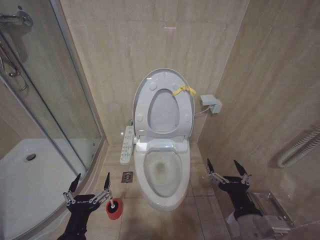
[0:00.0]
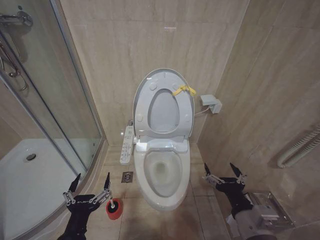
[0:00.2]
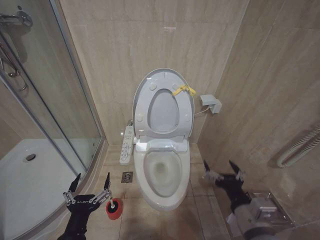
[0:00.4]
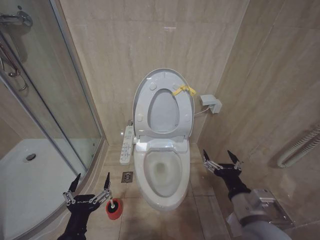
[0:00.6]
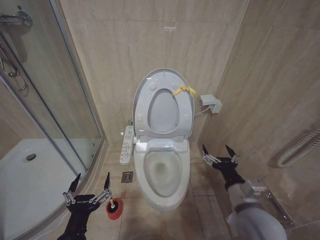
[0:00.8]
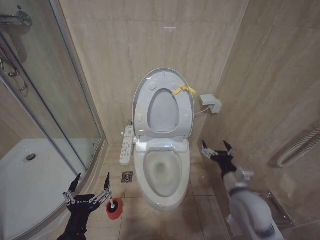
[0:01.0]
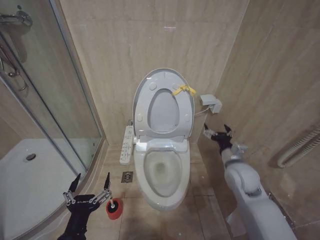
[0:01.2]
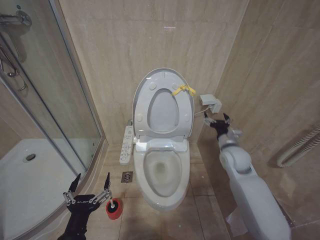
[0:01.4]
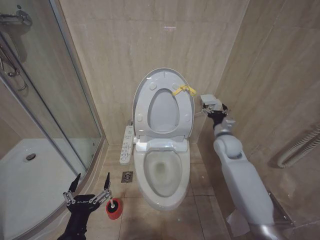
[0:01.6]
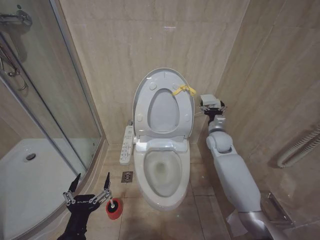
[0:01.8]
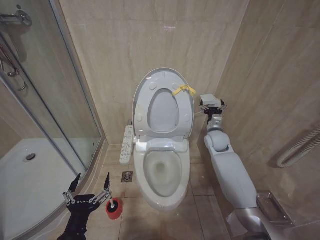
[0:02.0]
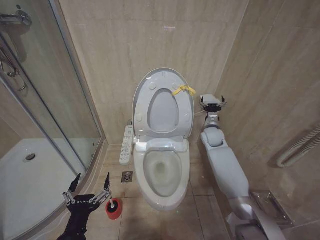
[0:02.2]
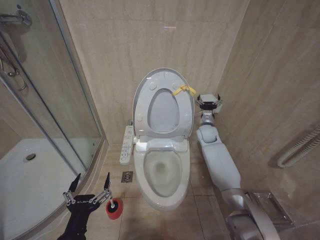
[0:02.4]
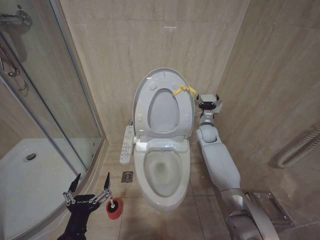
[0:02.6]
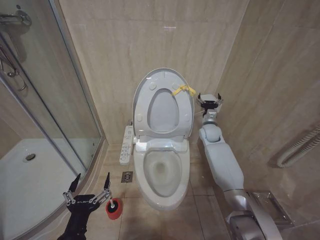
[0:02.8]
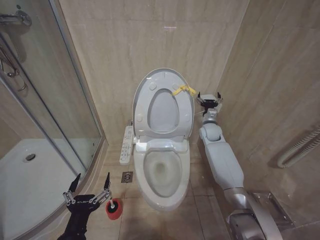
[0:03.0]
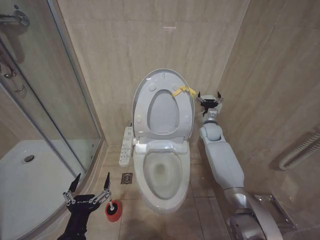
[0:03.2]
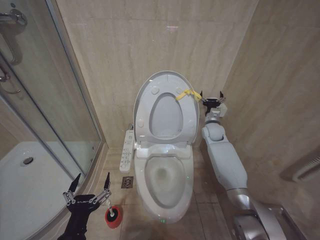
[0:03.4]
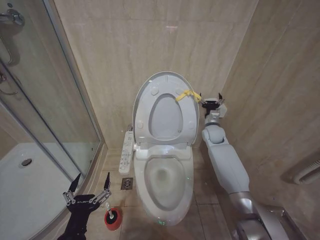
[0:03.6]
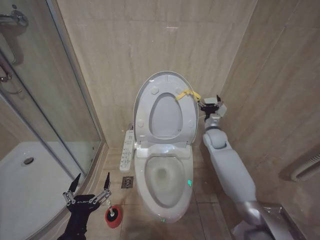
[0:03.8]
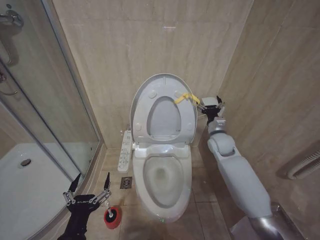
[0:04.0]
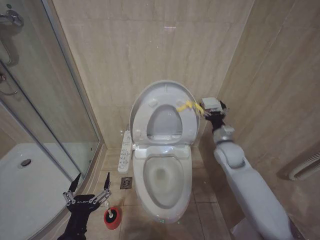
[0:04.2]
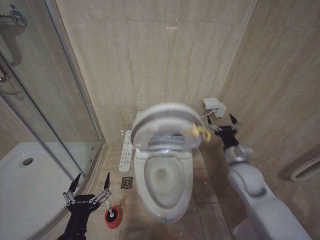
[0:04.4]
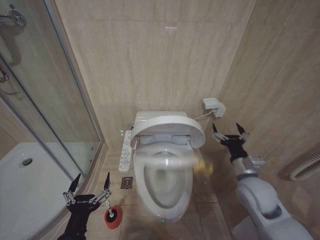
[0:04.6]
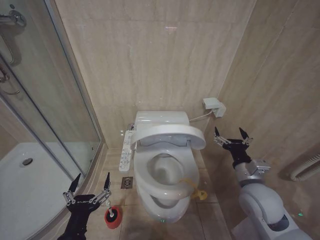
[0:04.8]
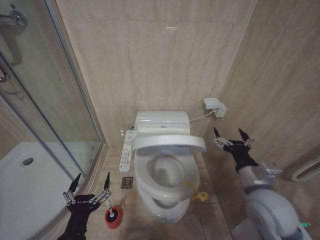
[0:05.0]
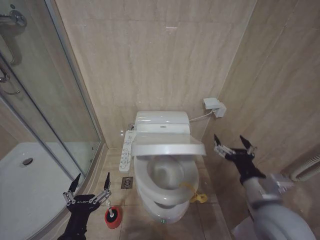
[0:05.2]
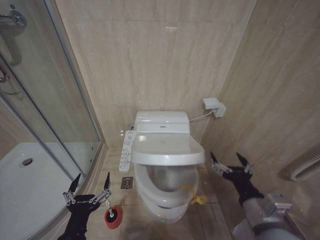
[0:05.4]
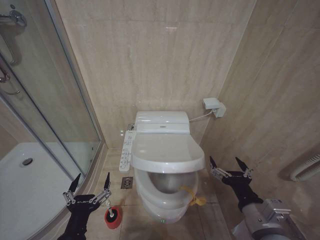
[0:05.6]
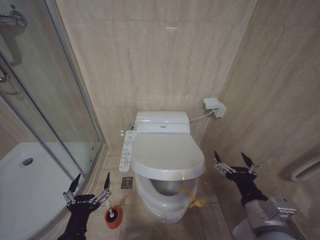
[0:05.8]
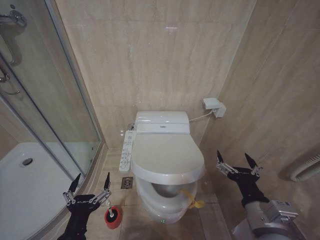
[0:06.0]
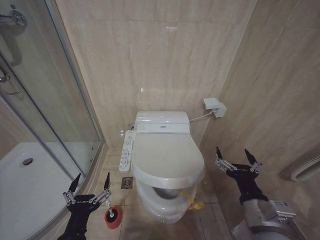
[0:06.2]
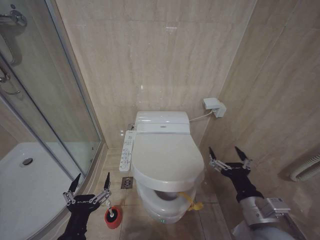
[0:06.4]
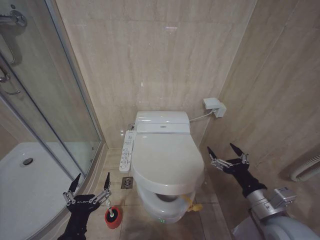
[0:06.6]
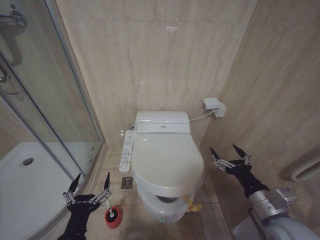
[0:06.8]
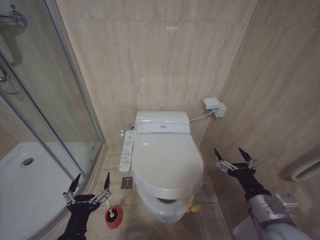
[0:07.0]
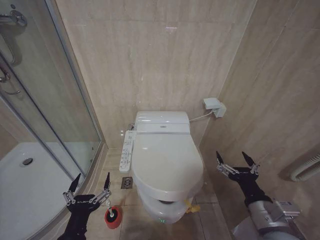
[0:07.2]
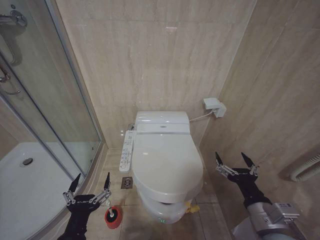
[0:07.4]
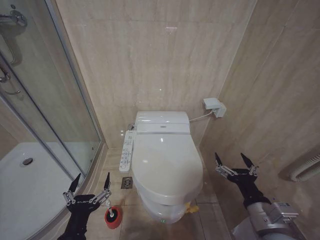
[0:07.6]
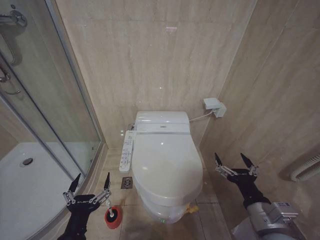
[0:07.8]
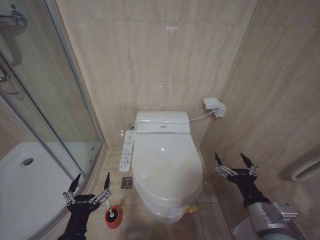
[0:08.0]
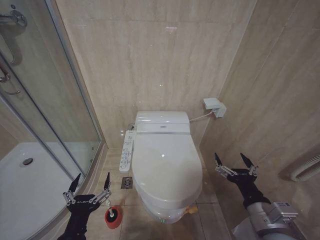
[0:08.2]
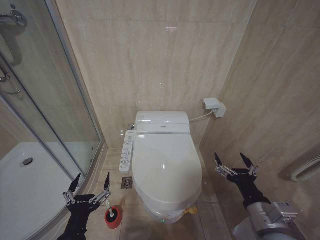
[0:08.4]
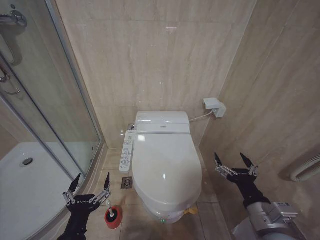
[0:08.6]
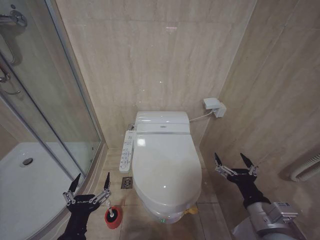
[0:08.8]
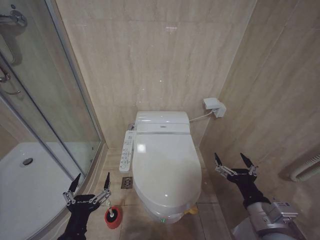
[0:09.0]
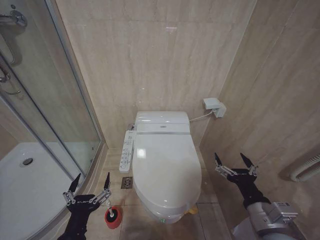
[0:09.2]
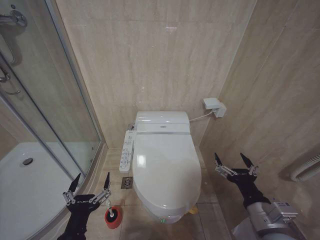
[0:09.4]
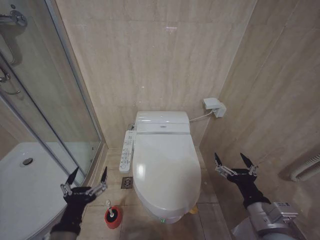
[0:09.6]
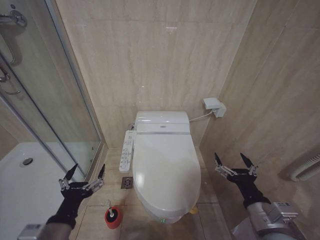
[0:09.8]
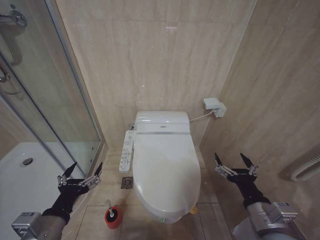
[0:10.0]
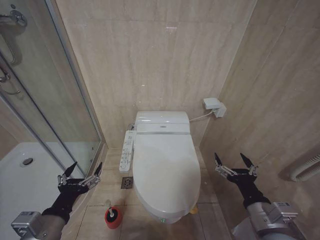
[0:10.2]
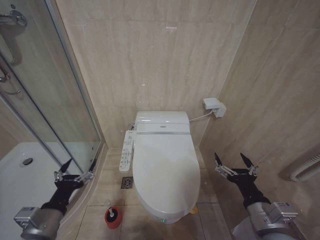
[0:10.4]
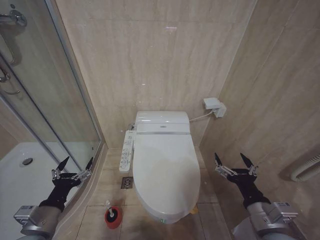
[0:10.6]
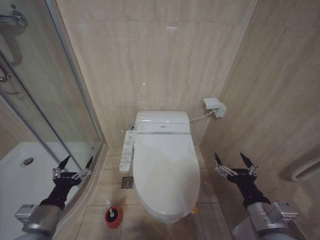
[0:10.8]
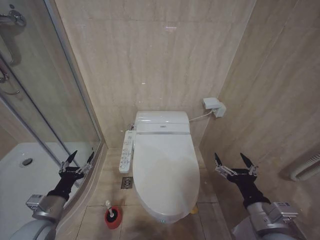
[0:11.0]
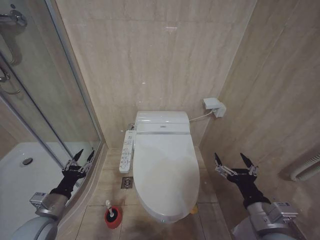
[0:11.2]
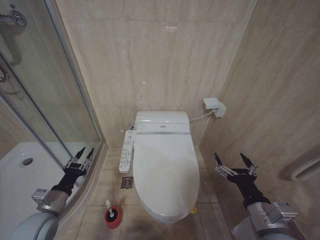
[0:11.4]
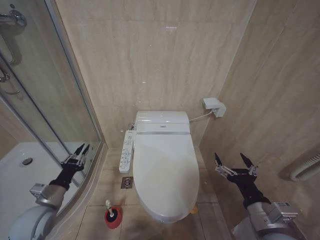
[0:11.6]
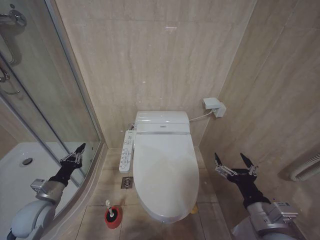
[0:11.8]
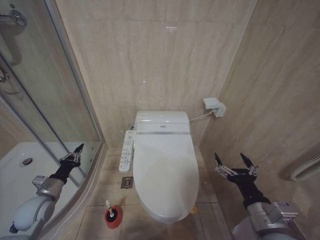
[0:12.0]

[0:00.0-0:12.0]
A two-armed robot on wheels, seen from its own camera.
Task of the whole recording: Open the toilet lid, clean the toilet bowl with a toilet brush, close the toilet lid, and flush.
0:00.0 to 0:01.6: The right gripper moves forward, roughly 35 cm.
0:01.6 to 0:03.0: The right gripper heads forward, covering roughly 10 cm.
0:03.0 to 0:04.4: The right gripper moves backward, approximately 20 cm.
0:04.4 to 0:06.0: The right gripper travels backward by some 20 cm.
0:07.6 to 0:09.0: Both grippers stay about where they are.
0:09.0 to 0:10.4: The left gripper goes some 10 cm to the left and forward.
0:10.4 to 0:12.0: The left gripper moves forward, to the left and downward, approximately 20 cm, and closes its fingers.

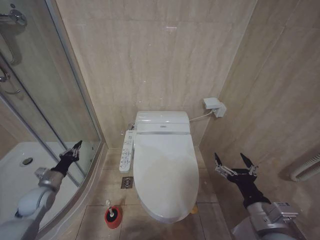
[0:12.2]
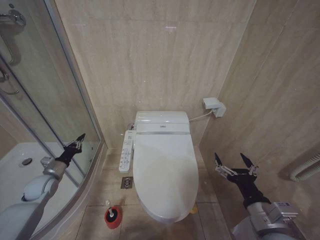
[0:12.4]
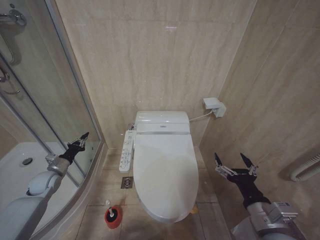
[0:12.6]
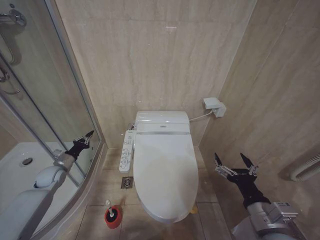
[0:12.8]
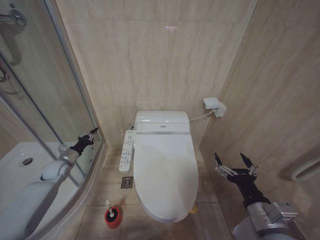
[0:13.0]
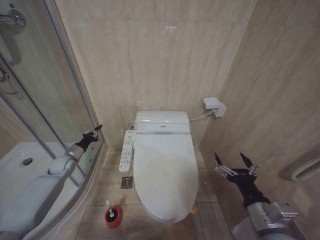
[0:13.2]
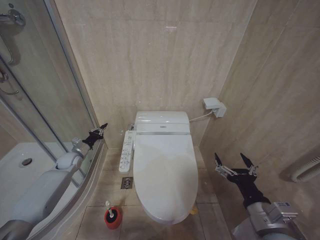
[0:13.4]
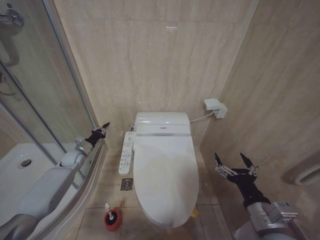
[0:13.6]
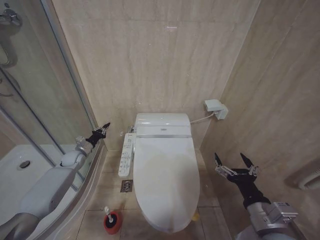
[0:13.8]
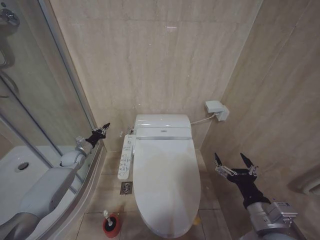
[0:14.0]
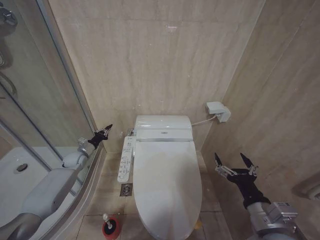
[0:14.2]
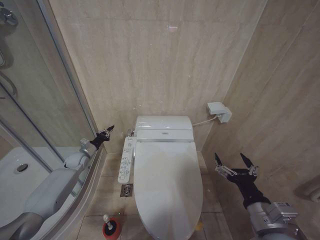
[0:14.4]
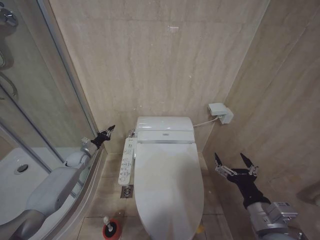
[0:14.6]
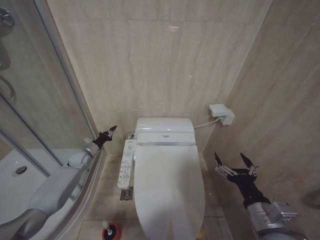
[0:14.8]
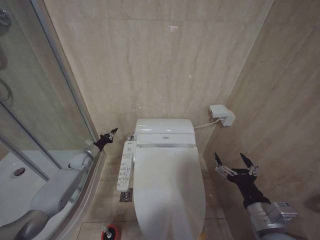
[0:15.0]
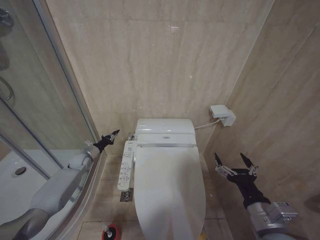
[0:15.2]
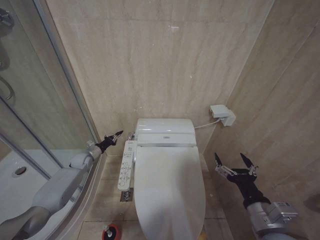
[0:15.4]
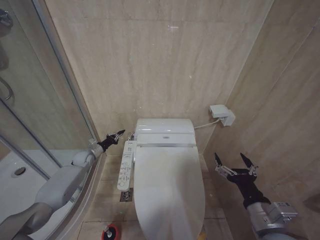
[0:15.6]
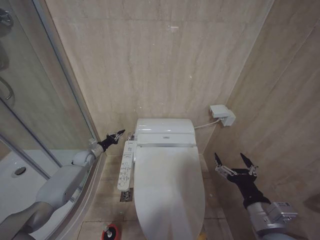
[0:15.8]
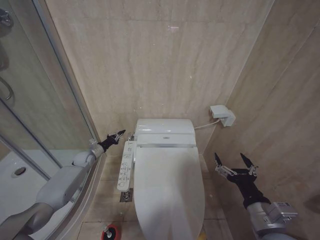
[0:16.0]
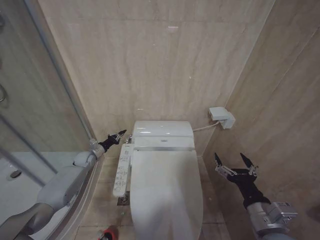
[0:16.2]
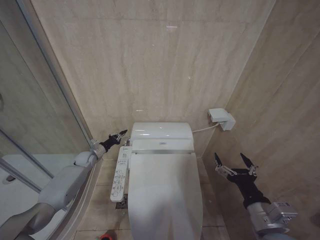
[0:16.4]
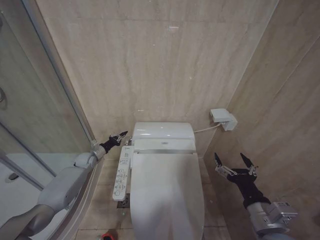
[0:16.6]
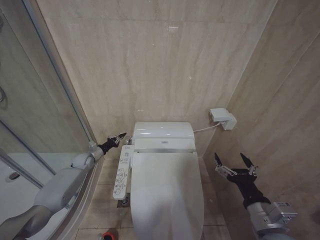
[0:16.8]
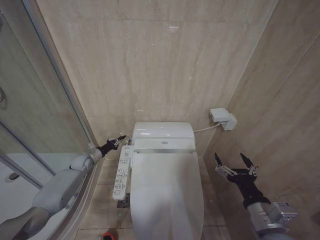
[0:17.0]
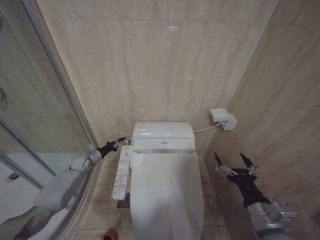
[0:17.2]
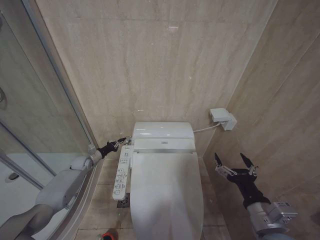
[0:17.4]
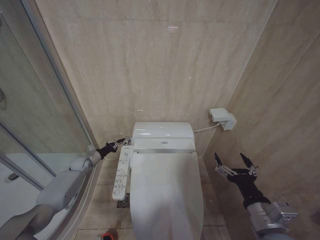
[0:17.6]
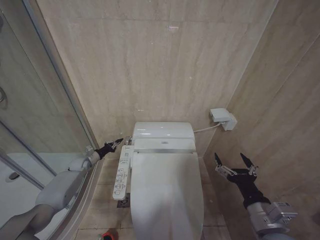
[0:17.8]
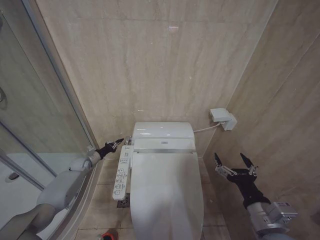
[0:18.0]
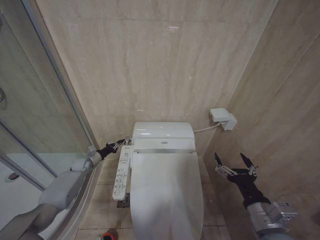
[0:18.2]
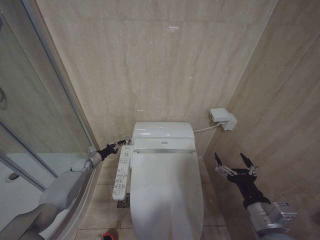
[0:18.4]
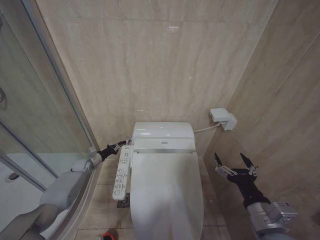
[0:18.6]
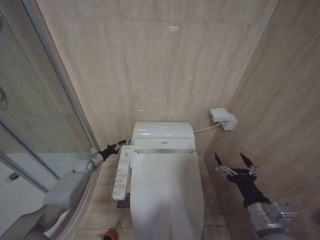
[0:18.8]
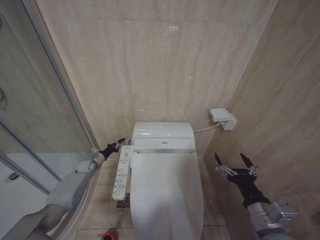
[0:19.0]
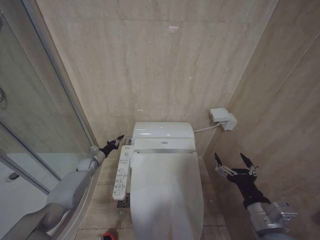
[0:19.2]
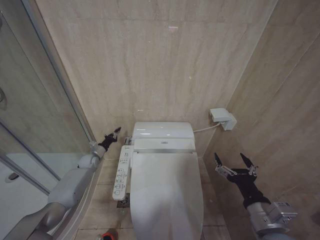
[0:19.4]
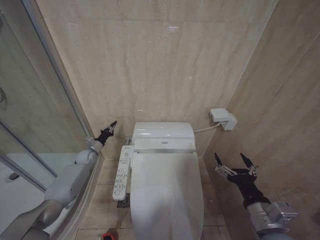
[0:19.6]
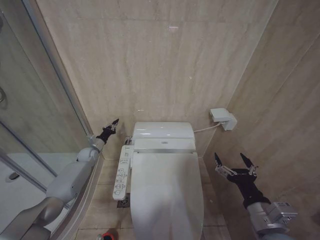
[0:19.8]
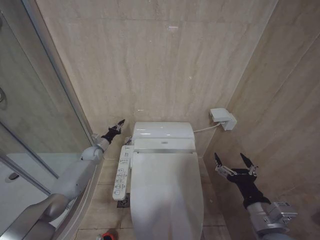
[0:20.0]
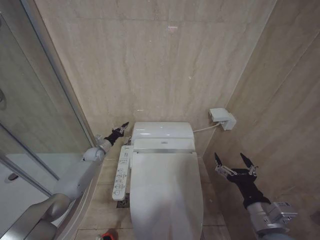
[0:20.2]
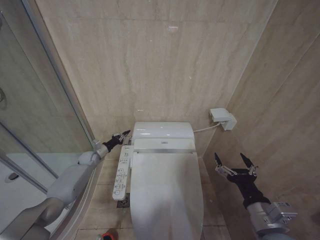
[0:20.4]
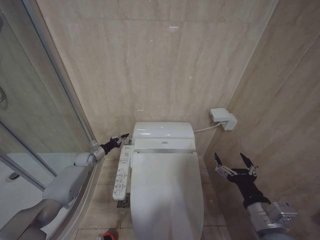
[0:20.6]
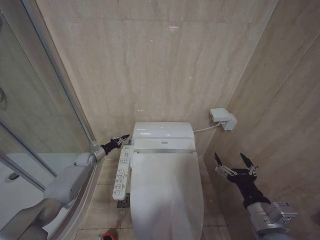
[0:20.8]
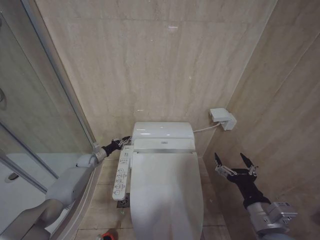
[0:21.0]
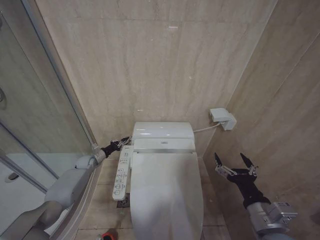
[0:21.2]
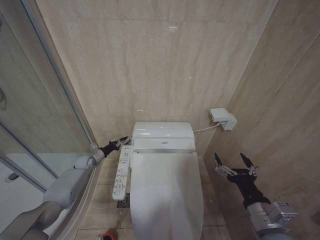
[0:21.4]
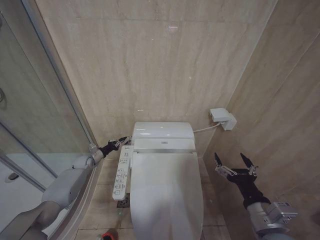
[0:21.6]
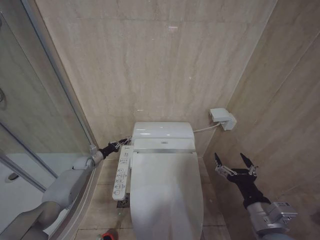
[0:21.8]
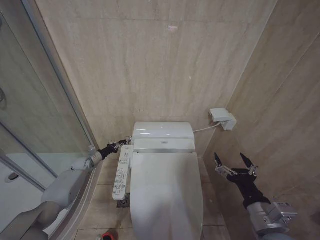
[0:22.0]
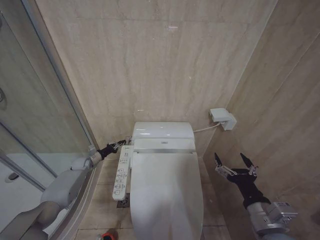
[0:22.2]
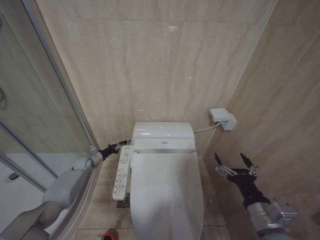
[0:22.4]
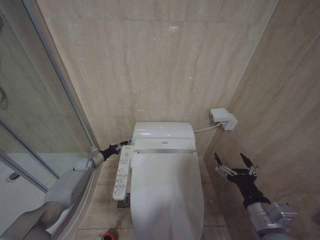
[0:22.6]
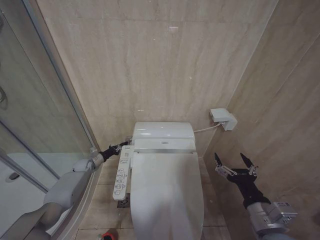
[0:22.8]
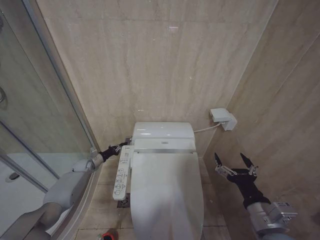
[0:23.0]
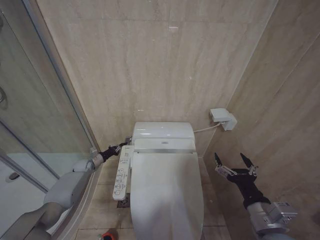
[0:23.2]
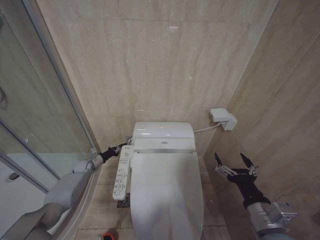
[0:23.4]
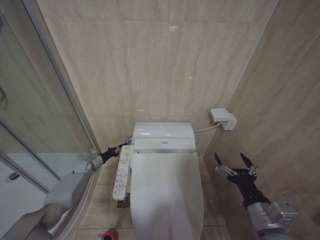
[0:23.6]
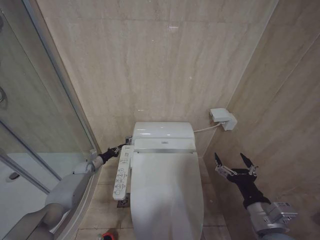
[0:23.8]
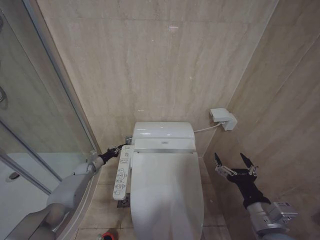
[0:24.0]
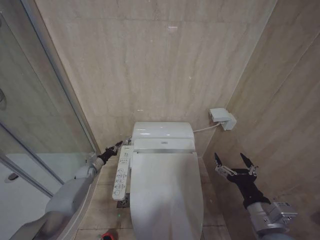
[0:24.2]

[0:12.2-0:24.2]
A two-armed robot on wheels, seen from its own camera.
Task of the whole recording: Open the toilet lid, clean the toilet bowl with a toilet brush, close the toilet lid, and flush.
0:12.2 to 0:13.8: The left gripper travels forward by some 20 cm.
0:13.8 to 0:16.6: There are only small adjustments of the grippers.
0:16.6 to 0:18.2: The left gripper ends up approximately 5 cm from where it was.
0:18.2 to 0:19.8: The left gripper changes place by about 5 cm.
0:22.6 to 0:24.2: There are only small adjustments of the grippers.
